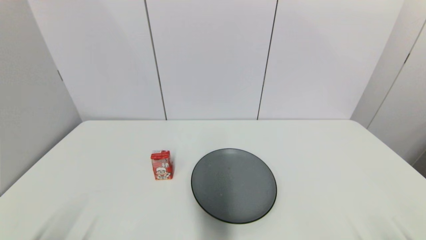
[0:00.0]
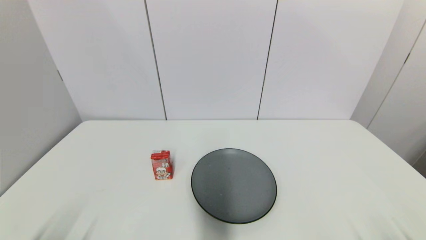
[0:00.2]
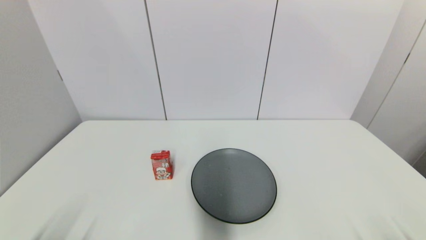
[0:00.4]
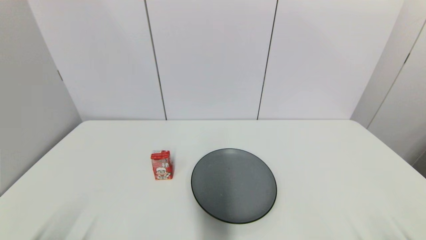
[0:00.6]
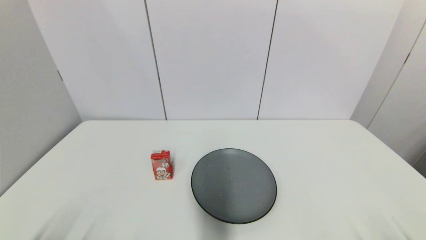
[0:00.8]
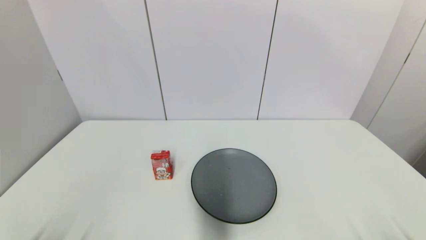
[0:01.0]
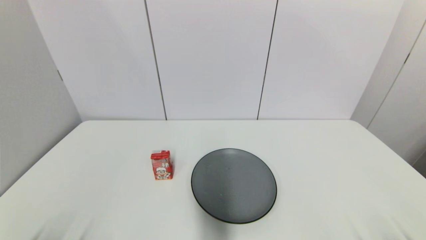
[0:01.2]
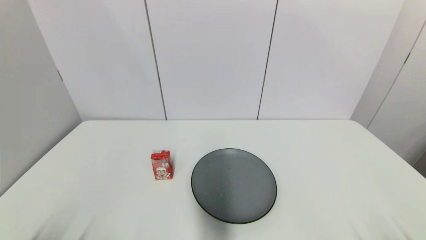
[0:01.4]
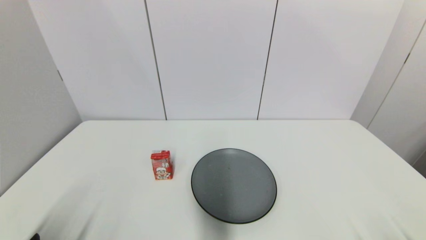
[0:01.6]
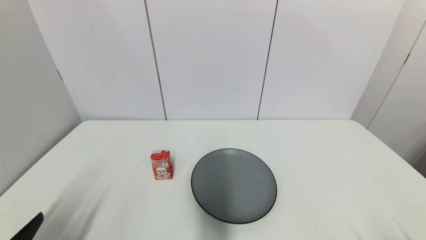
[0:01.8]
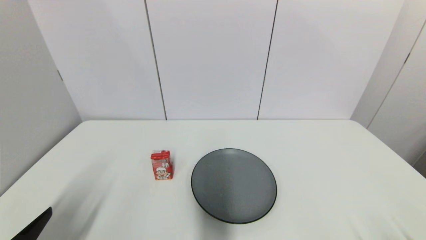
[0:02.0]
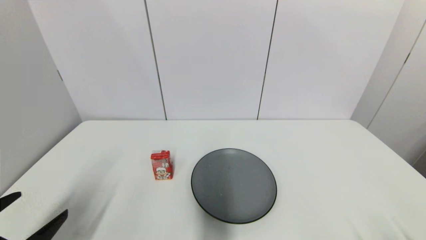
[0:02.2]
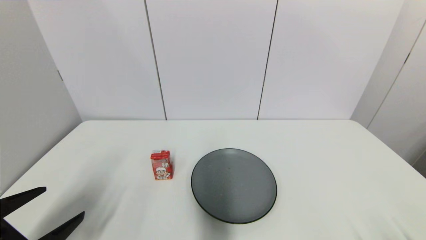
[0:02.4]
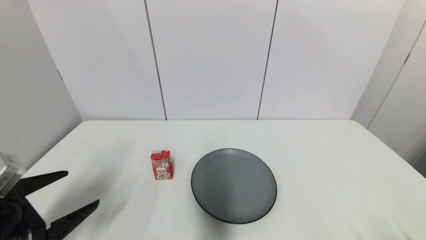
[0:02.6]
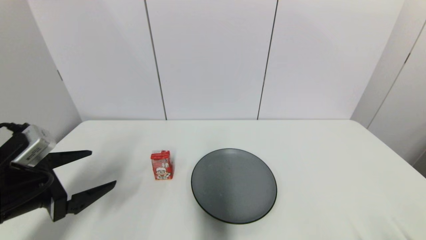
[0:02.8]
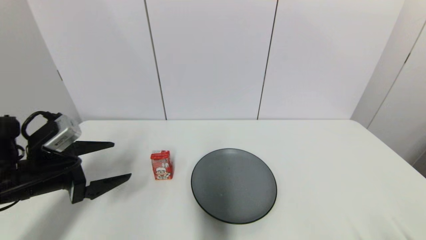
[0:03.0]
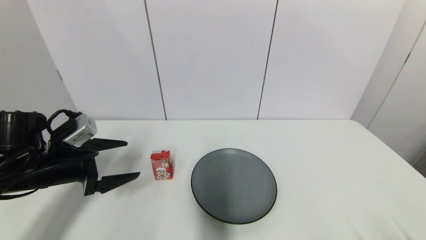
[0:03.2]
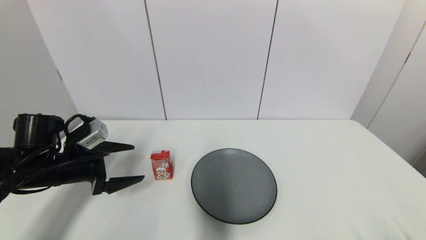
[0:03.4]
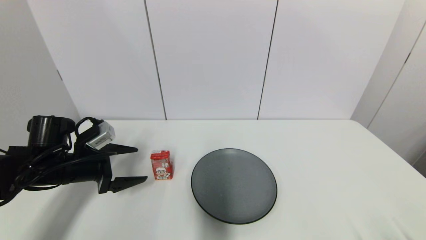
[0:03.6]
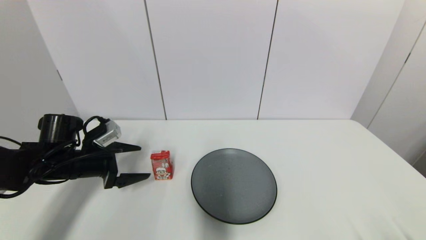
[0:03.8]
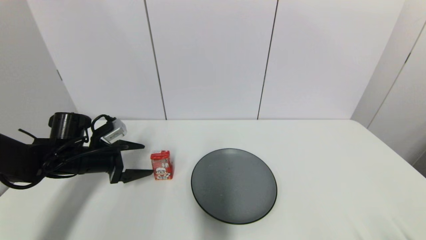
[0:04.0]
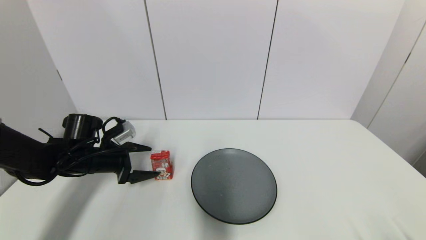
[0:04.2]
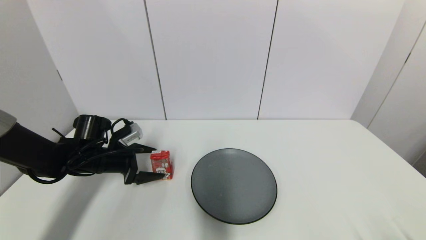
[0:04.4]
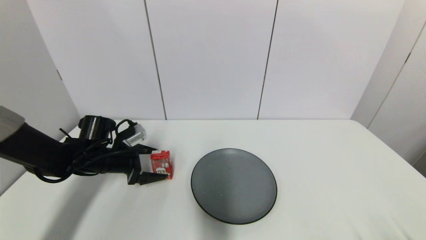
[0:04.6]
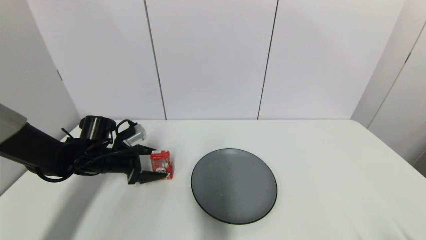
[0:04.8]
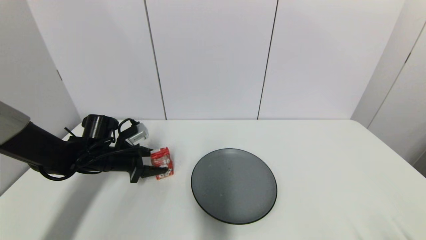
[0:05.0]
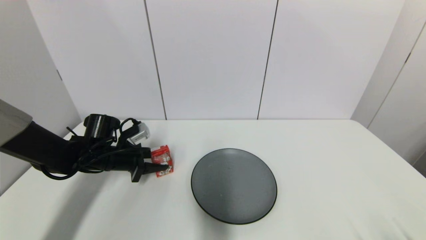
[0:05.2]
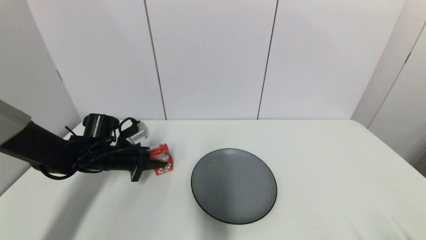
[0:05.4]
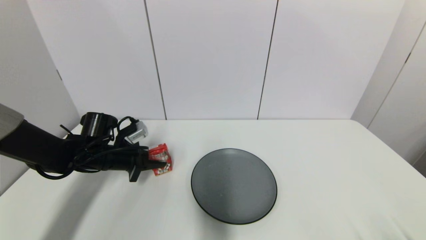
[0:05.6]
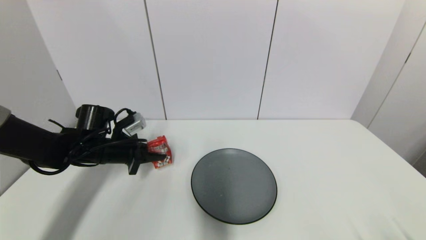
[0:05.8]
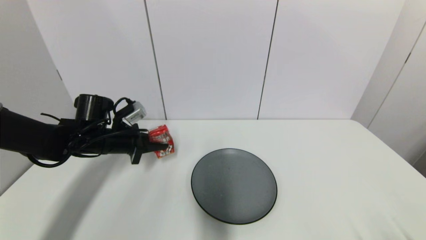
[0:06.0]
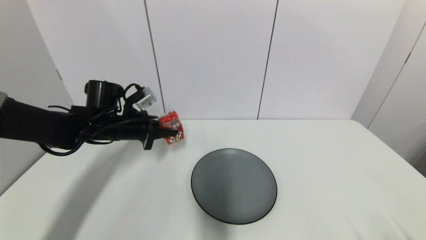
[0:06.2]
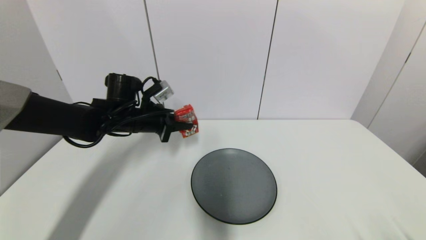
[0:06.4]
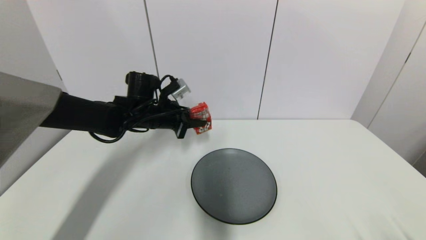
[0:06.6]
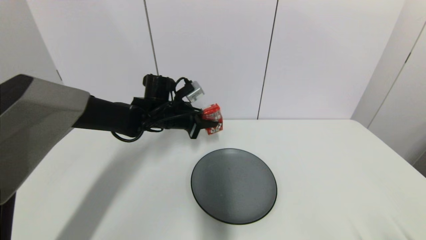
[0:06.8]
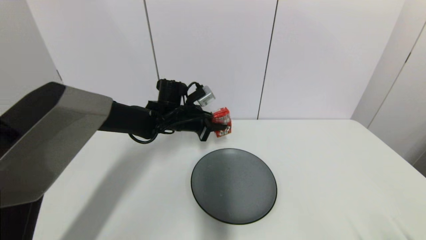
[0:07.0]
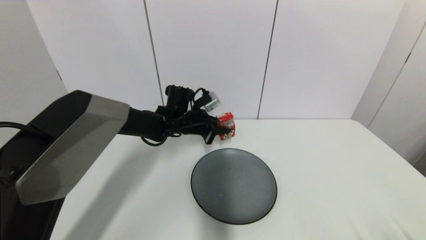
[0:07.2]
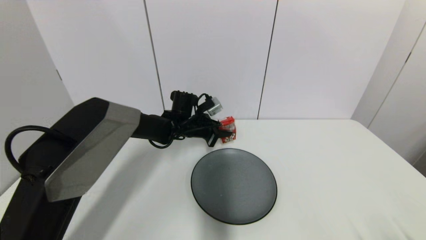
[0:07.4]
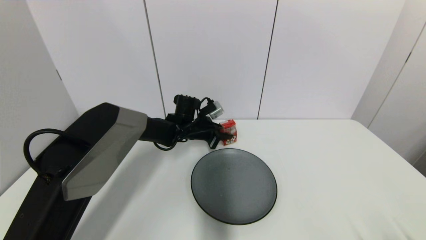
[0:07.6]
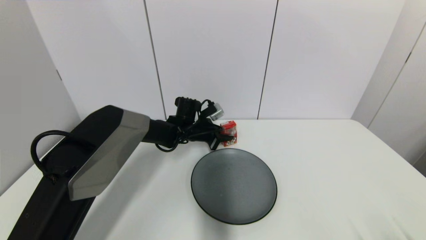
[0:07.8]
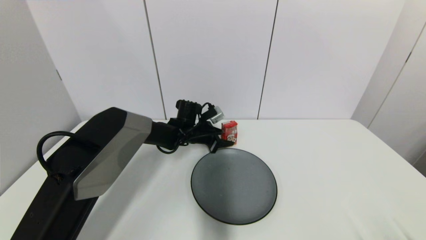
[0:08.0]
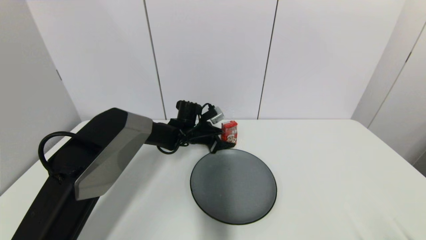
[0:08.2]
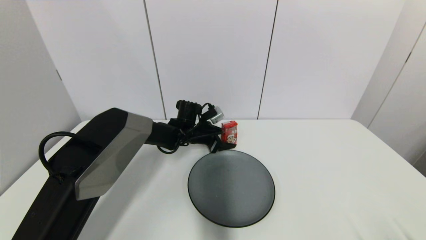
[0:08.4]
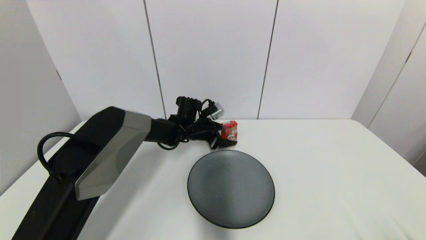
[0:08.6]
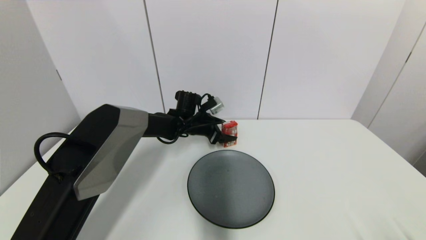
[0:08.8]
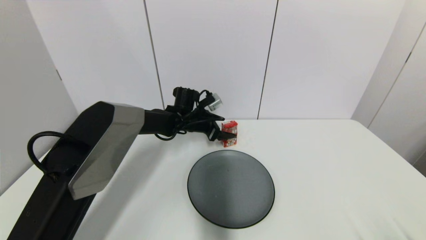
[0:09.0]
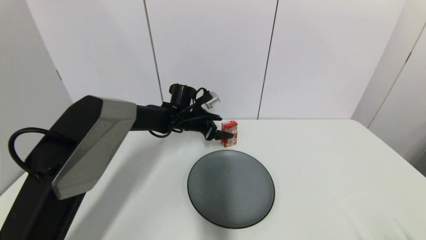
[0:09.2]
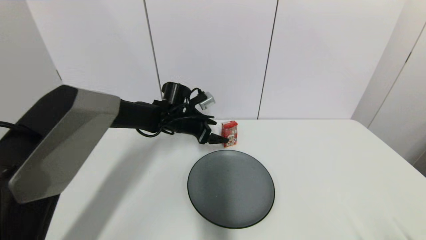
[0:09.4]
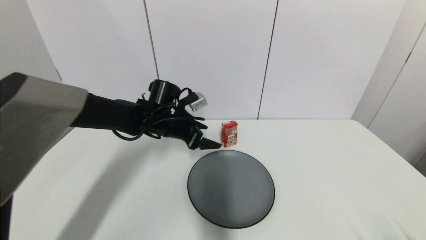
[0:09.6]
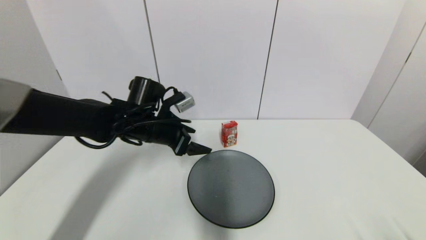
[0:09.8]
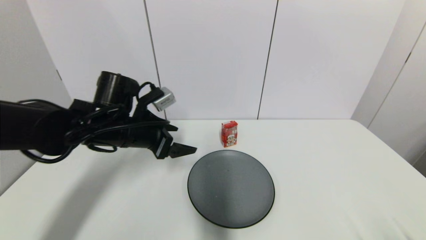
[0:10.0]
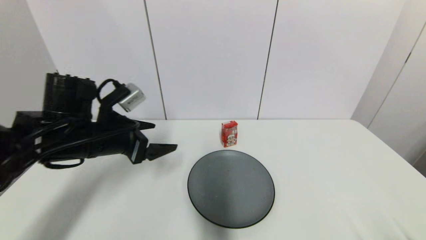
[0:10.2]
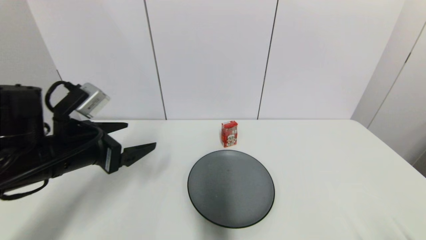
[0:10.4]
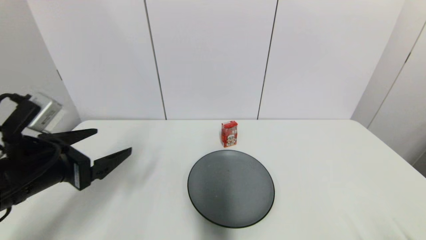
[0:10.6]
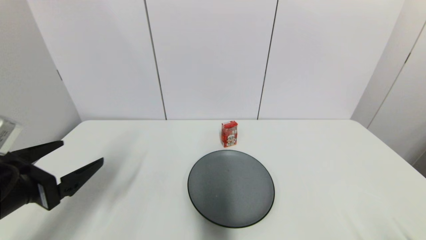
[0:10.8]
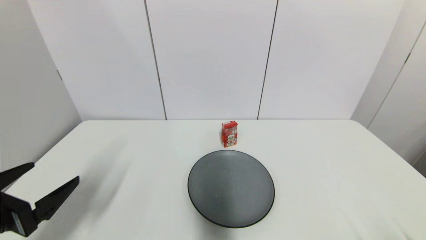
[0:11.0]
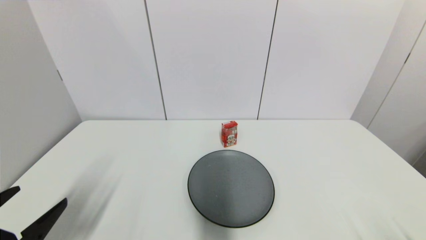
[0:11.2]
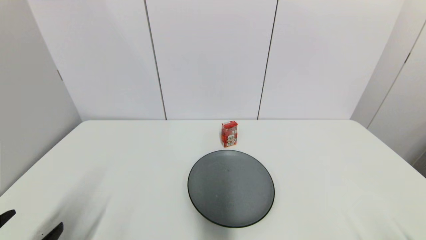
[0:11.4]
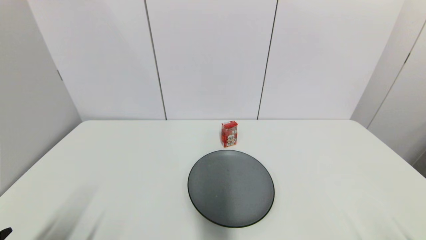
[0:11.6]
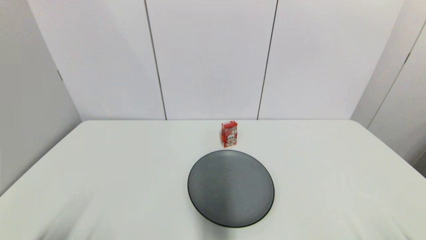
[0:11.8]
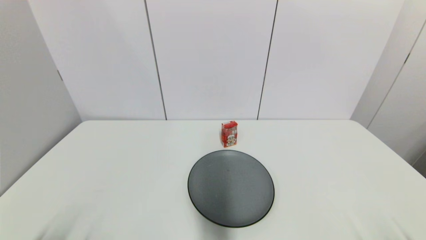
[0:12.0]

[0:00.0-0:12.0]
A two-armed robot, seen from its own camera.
Step, 0:01.6 to 0:05.2: Grasp the wangzai milk with left gripper.
Step, 0:05.4 to 0:08.2: Place the wangzai milk on the table with left gripper.
0:00.0 to 0:01.6: The left gripper shifts by some 5 cm.
0:01.6 to 0:03.0: The left gripper travels forward by roughly 20 cm.
0:03.0 to 0:04.4: The left gripper moves forward and downward, approximately 15 cm.
0:04.4 to 0:06.0: The left gripper moves upward, roughly 5 cm, and closes its fingers.
0:06.0 to 0:07.6: The left gripper heads to the right and forward, covering approximately 20 cm.
0:07.6 to 0:09.0: The left gripper opens its fingers.
0:09.0 to 0:10.4: The left gripper moves backward and to the left, some 30 cm.
0:10.4 to 0:12.0: The left gripper travels backward and downward by some 25 cm.

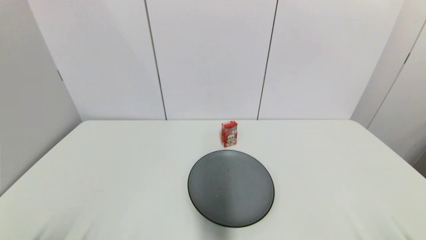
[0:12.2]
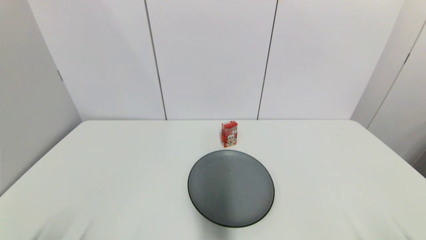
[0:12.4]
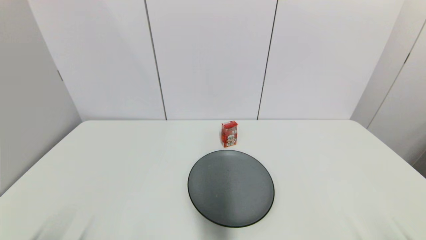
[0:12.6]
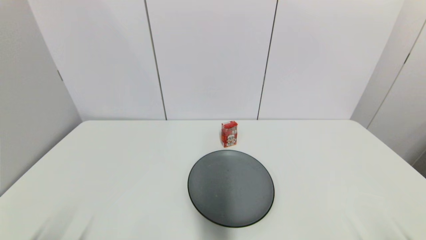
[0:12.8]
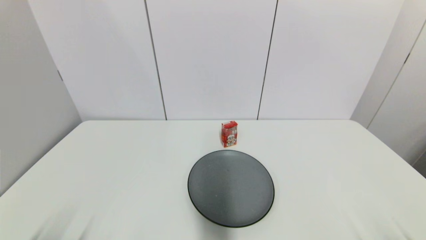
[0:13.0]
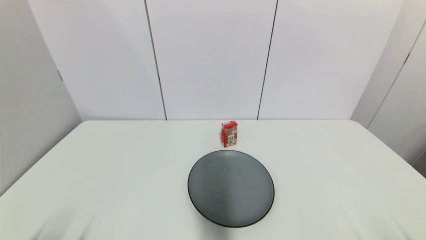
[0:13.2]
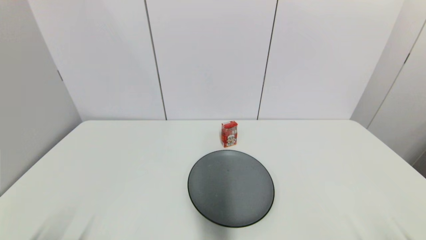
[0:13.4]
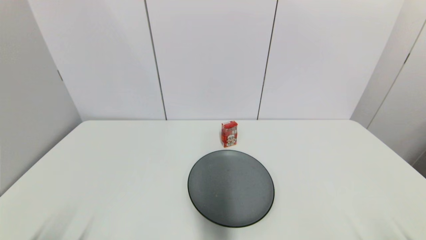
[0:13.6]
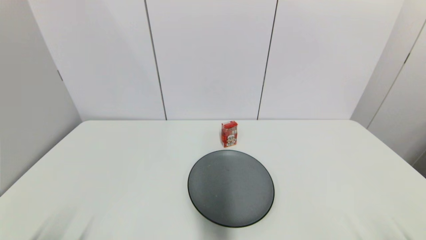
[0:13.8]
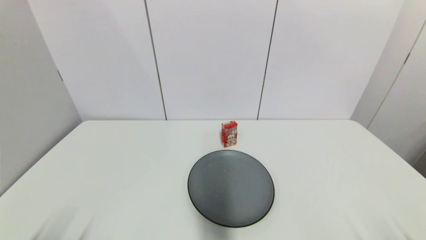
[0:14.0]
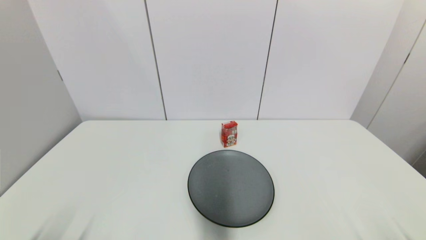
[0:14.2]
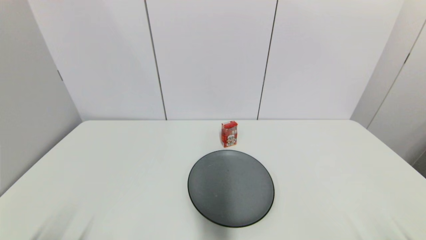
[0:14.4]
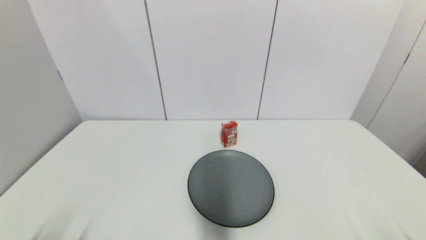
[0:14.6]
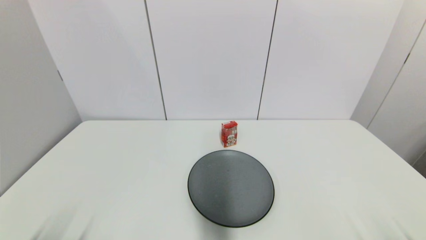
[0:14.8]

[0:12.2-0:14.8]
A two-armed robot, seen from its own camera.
0:13.4 to 0:14.8: Neither gripper changes place.
